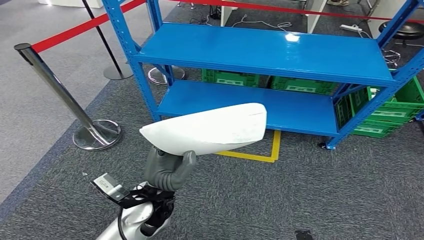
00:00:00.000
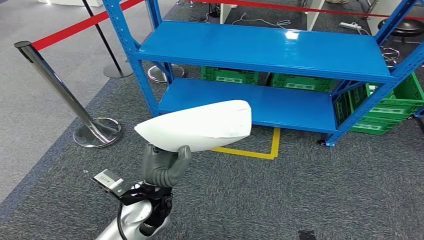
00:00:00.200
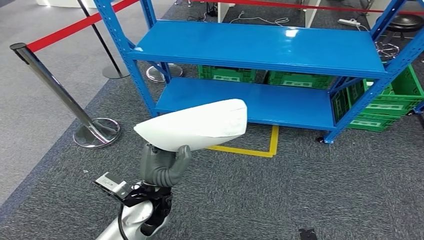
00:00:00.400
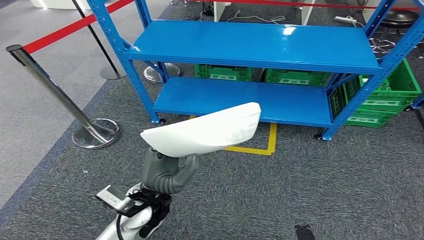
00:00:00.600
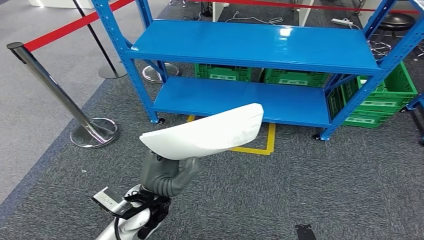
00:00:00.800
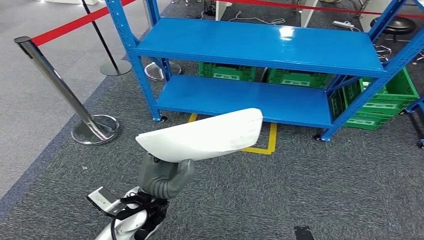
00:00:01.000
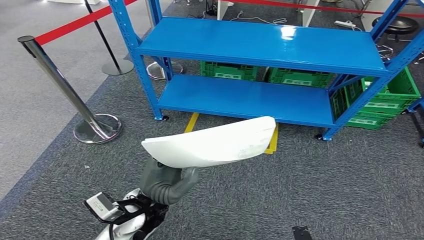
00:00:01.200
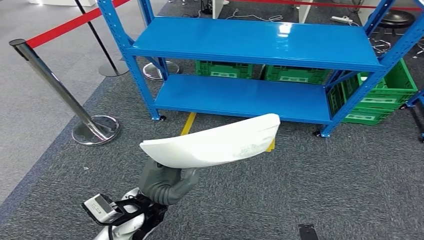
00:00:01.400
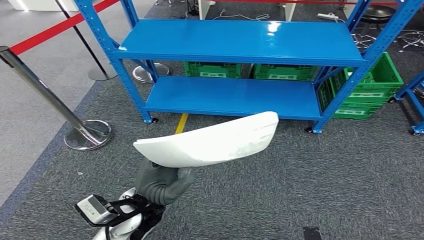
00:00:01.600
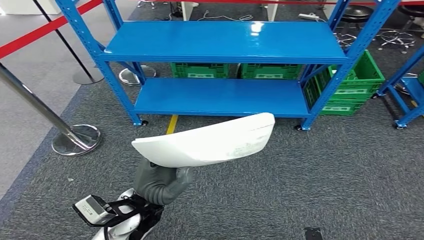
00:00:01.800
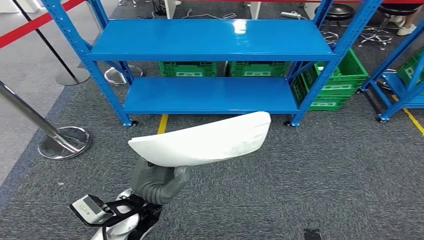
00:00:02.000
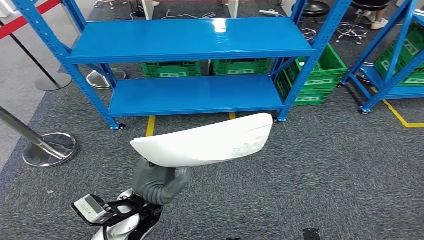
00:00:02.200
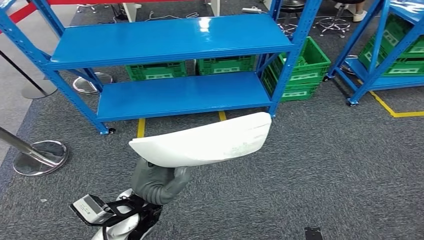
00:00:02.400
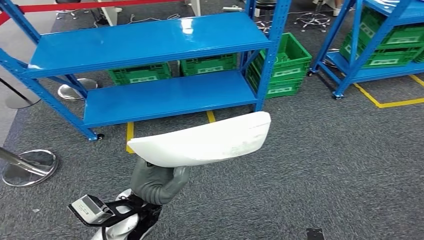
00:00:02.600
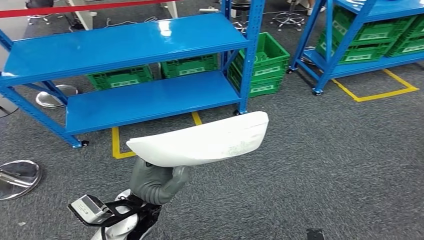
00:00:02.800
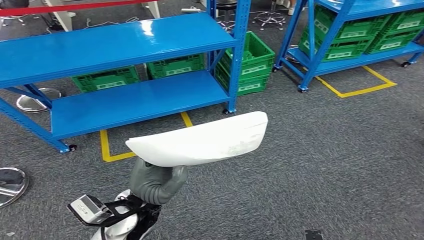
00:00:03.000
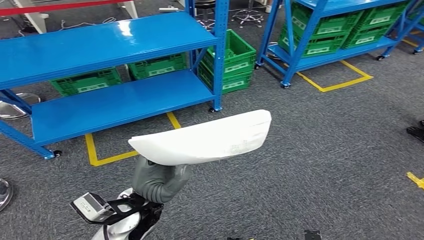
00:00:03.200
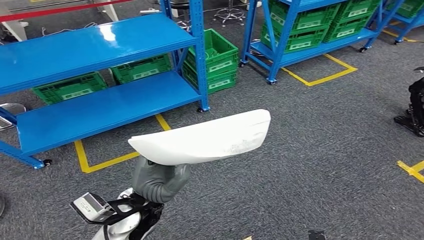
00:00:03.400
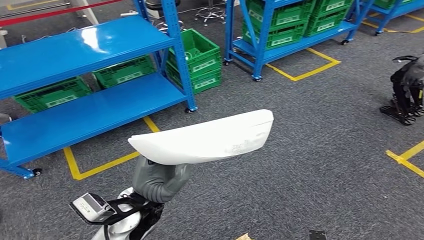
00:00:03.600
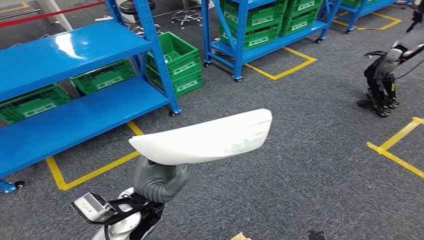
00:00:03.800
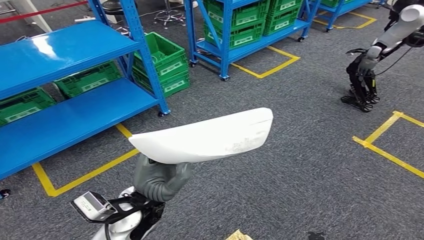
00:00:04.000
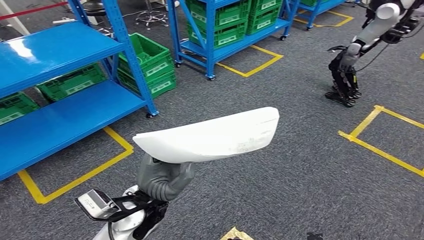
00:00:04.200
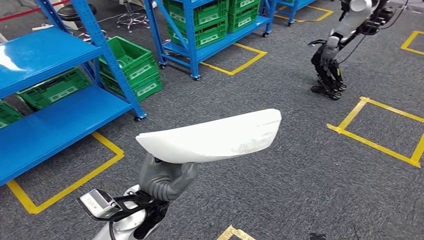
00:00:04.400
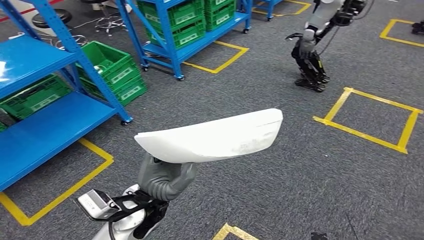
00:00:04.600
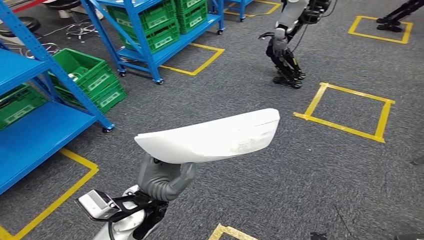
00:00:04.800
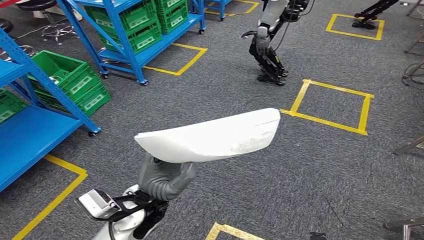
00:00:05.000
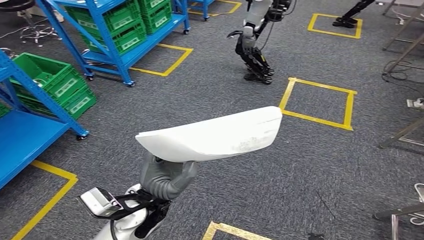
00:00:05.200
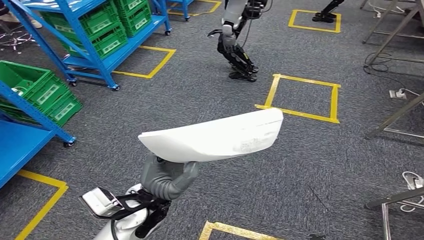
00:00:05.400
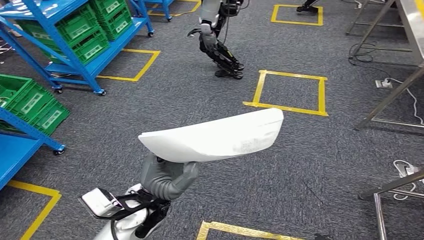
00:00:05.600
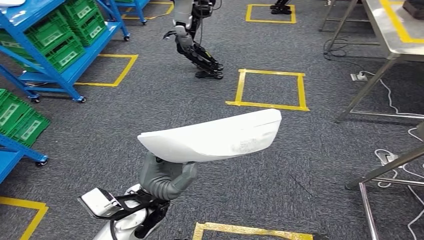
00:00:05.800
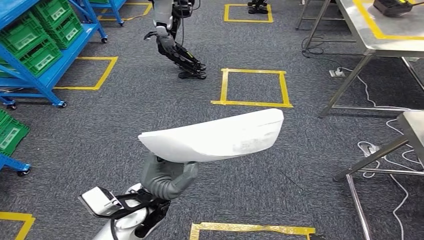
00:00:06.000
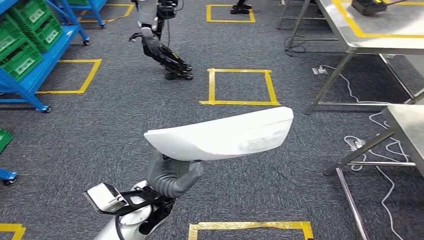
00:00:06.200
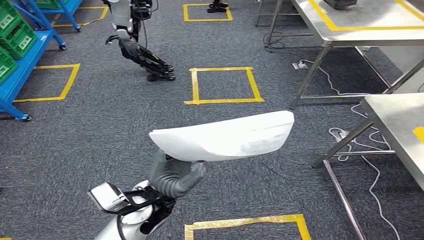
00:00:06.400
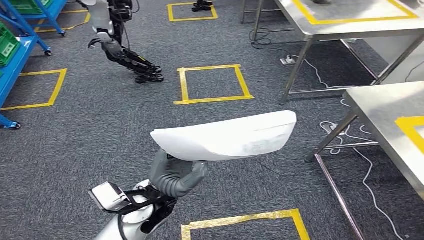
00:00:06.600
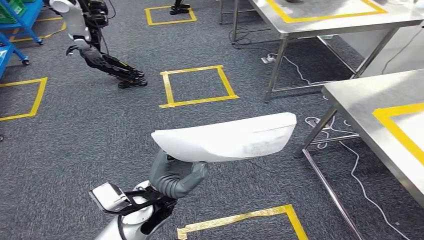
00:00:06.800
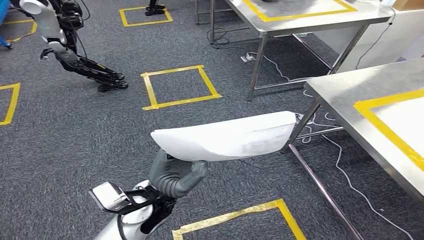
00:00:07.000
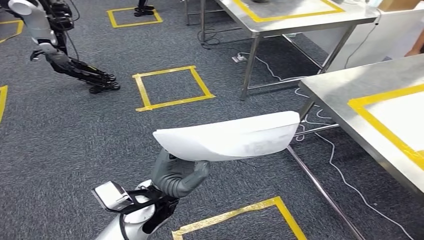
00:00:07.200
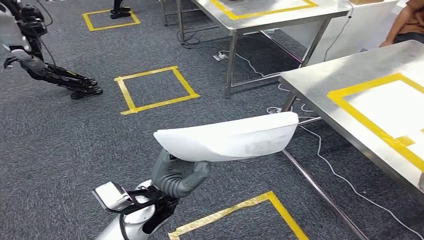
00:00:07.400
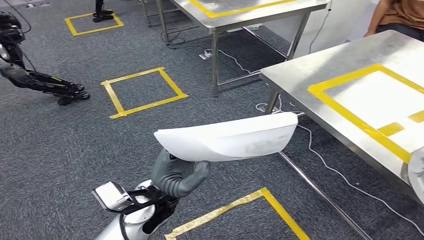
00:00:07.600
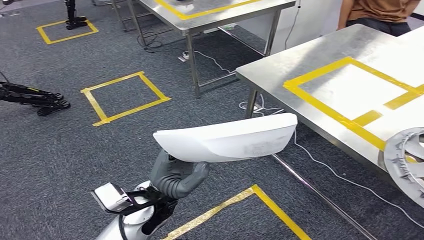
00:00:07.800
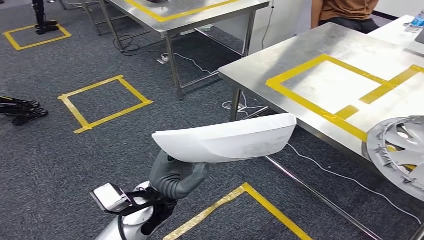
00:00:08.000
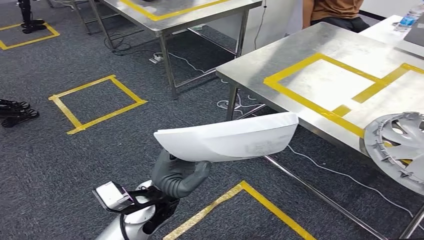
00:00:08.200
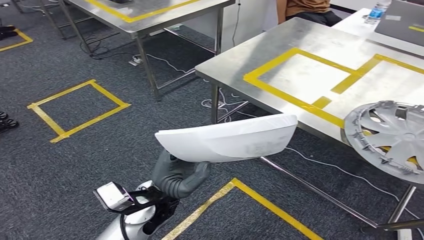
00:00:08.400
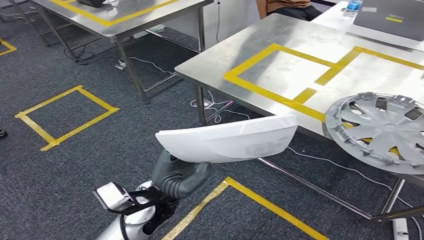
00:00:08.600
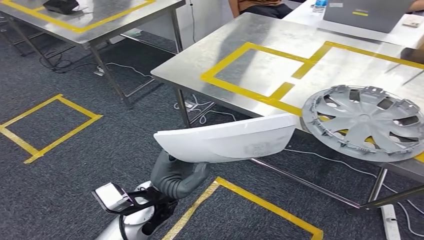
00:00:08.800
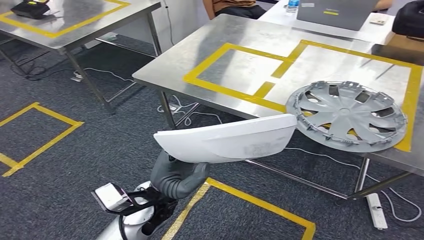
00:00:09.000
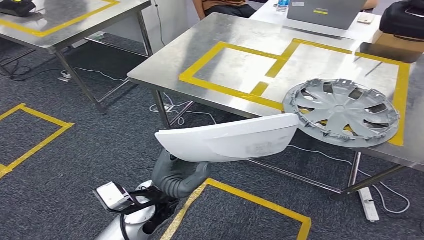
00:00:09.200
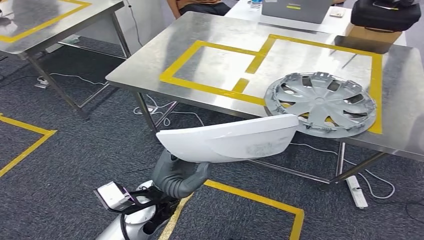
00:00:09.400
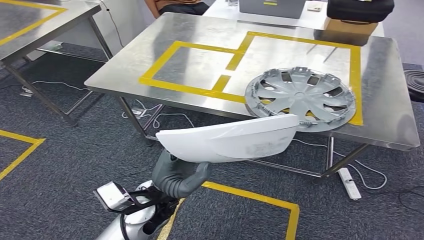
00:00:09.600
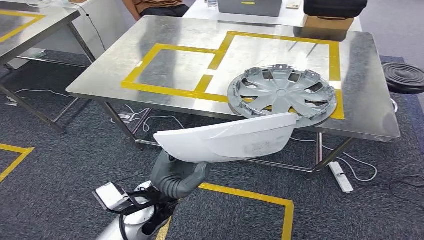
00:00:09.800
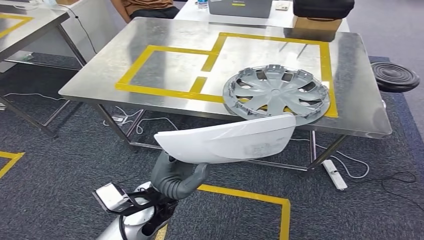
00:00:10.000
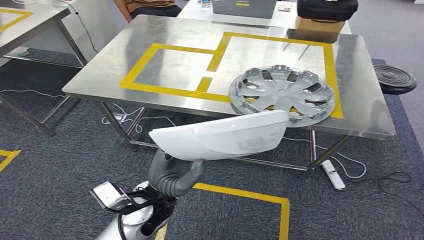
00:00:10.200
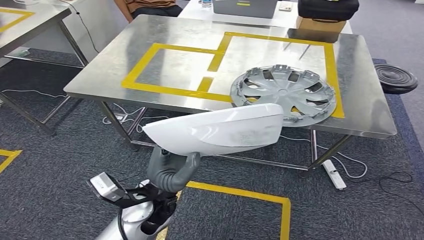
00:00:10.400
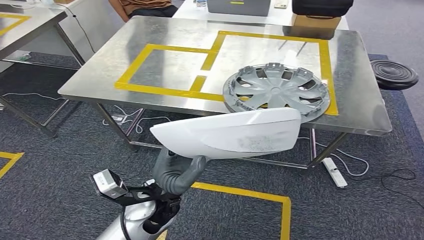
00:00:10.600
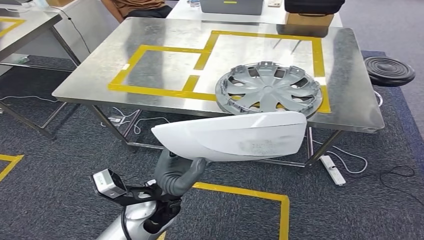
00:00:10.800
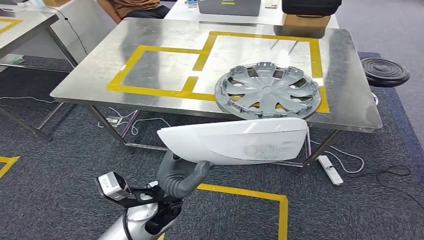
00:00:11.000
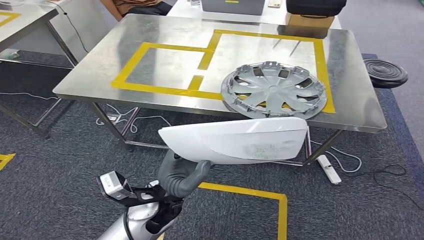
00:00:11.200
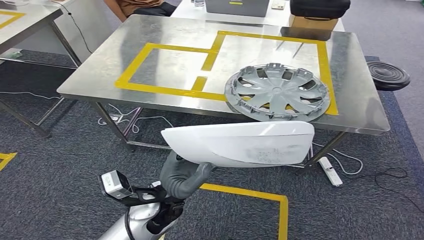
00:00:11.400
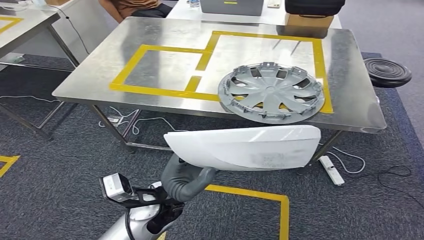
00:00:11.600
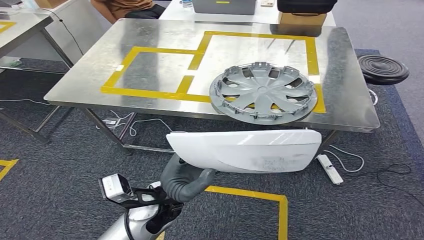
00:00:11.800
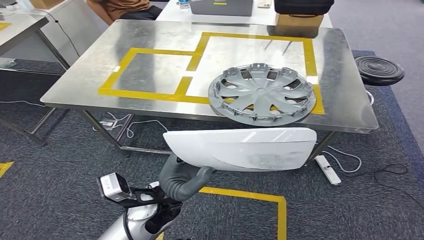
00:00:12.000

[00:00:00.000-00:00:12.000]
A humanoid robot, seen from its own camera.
Step, 00:00:00.000 to 00:00:09.400: Move the small component to the workbench.

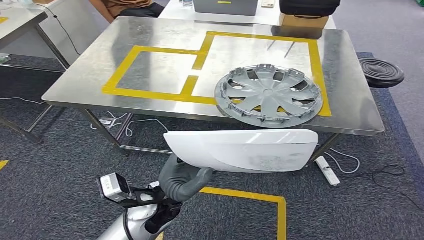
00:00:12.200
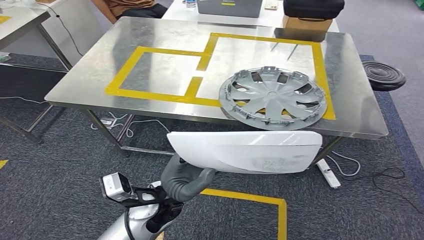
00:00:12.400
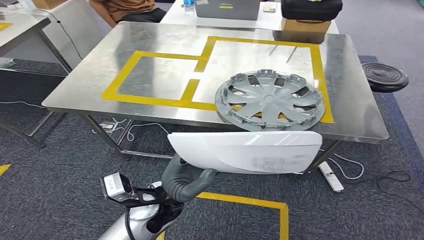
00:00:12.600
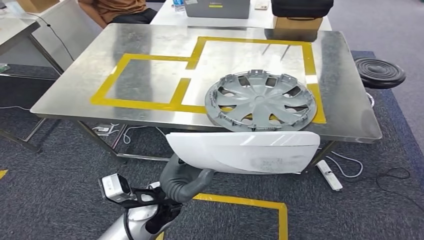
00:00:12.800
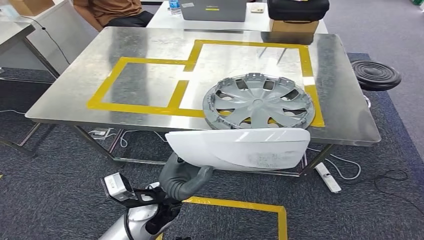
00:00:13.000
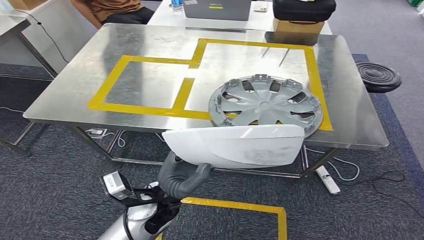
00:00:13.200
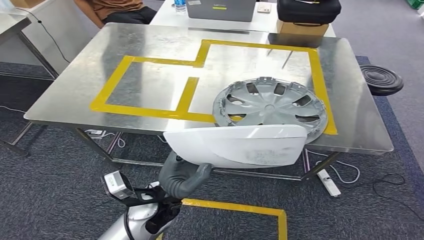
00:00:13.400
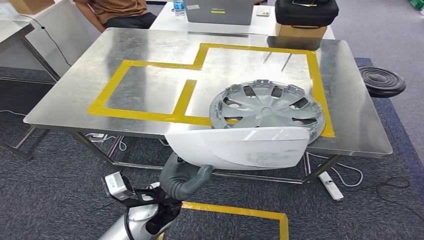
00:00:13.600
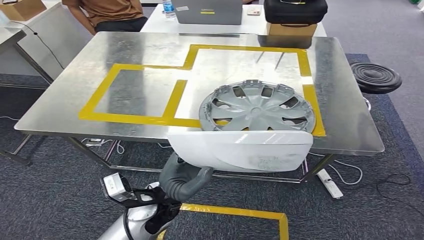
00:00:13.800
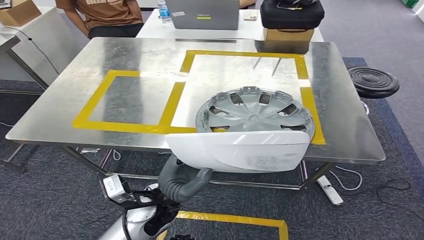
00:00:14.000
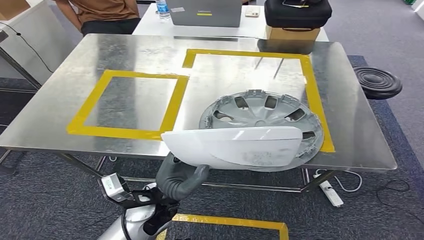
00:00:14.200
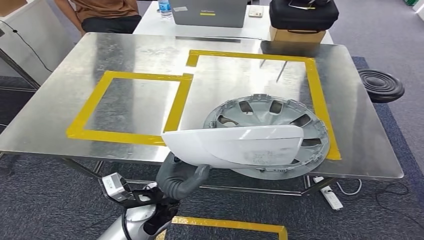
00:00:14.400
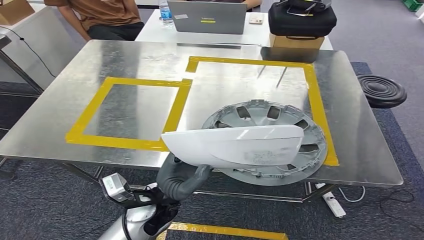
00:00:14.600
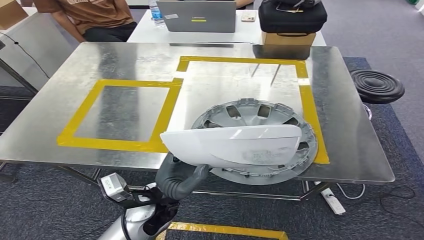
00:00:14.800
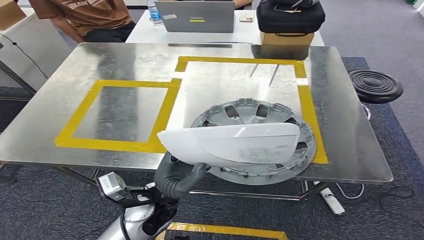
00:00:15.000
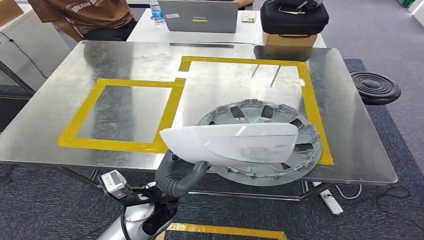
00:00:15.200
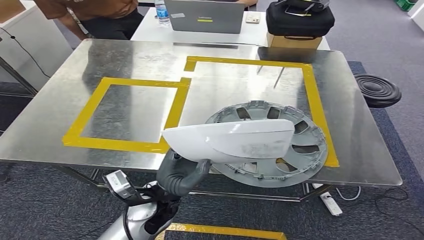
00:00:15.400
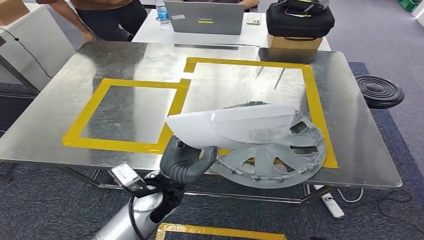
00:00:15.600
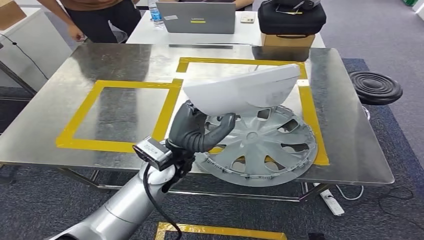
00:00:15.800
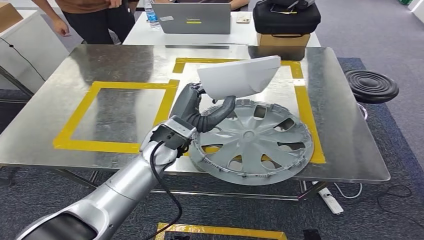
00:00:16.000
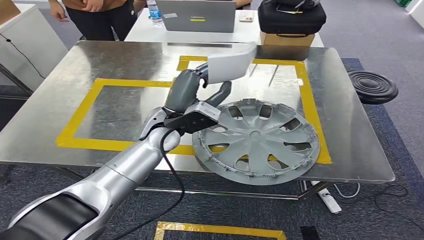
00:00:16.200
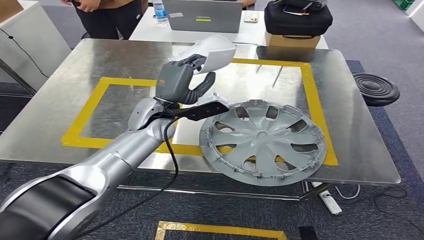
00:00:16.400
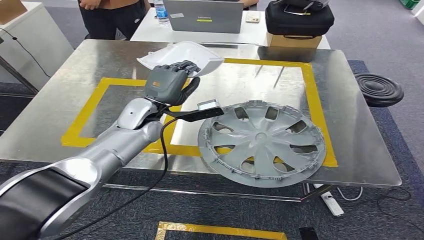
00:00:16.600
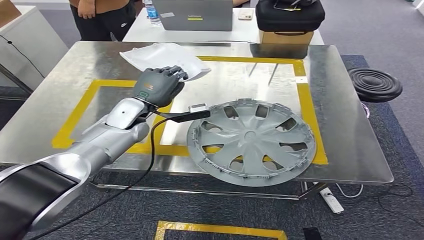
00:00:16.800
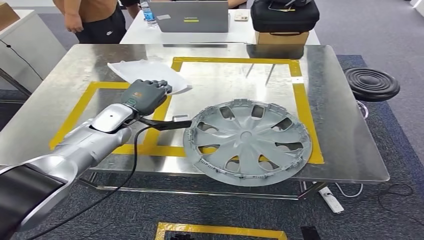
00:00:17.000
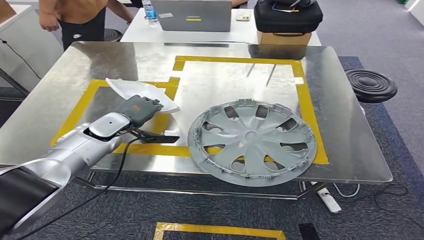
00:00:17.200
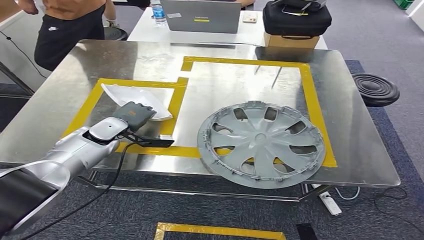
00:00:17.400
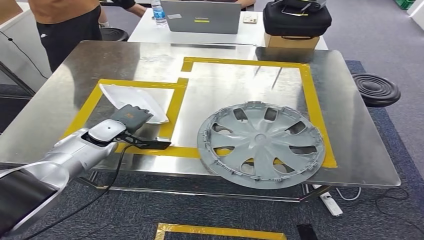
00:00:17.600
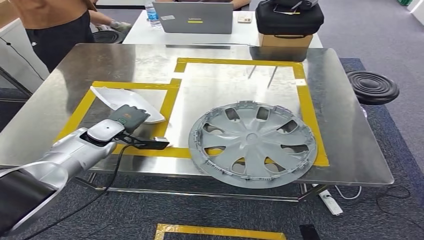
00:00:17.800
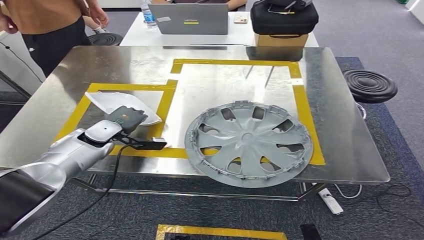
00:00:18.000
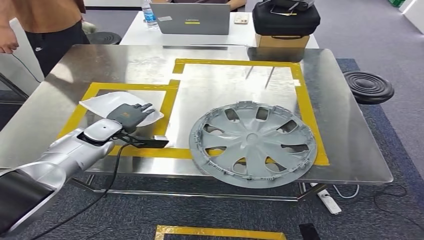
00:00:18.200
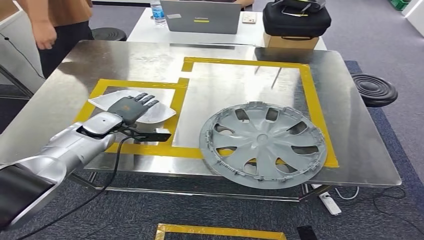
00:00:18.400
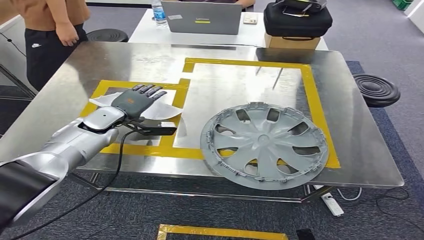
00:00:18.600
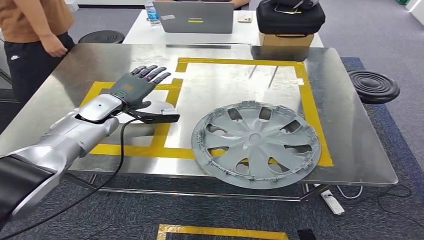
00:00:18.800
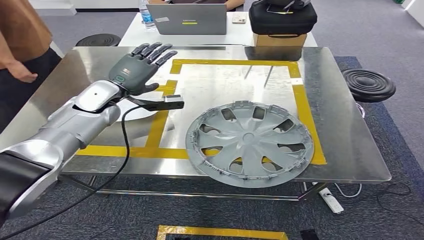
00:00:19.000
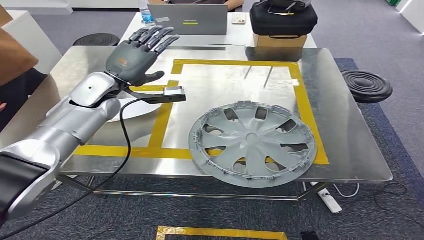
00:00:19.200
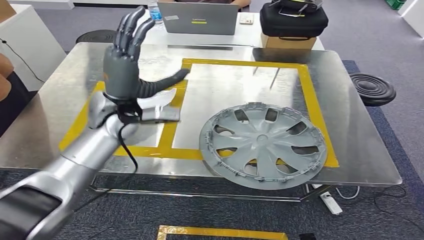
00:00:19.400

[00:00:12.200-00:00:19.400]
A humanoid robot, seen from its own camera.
Step, 00:00:12.200 to 00:00:19.200: Insert the small component into the corresponding slot on the workbench.
